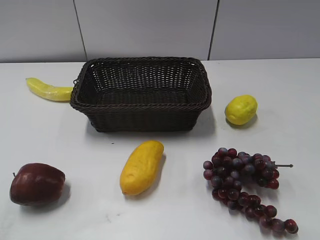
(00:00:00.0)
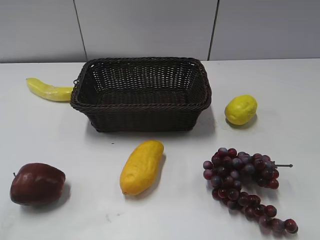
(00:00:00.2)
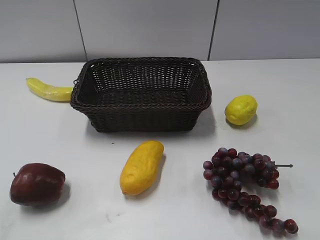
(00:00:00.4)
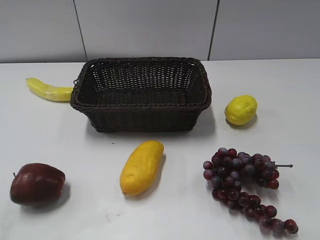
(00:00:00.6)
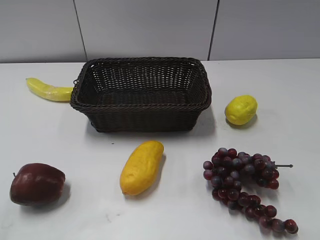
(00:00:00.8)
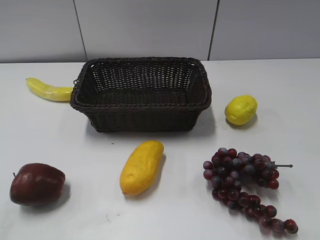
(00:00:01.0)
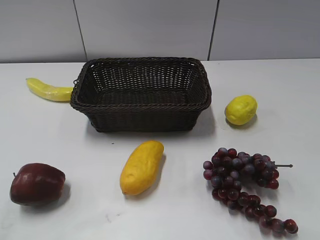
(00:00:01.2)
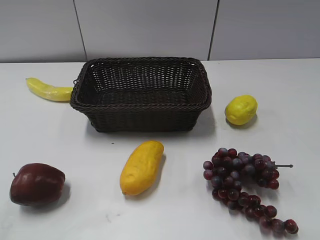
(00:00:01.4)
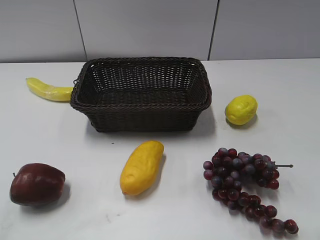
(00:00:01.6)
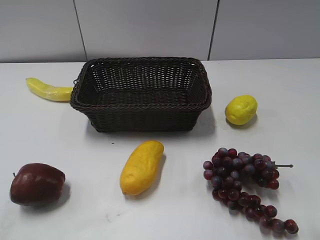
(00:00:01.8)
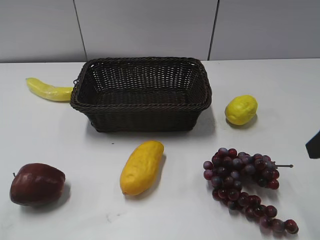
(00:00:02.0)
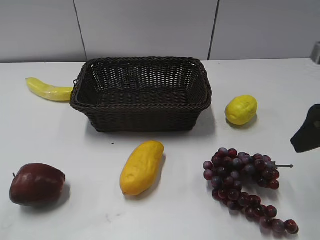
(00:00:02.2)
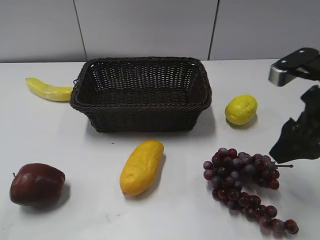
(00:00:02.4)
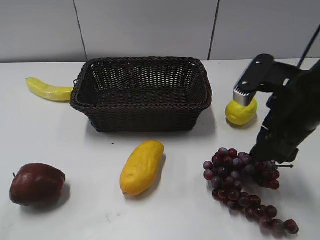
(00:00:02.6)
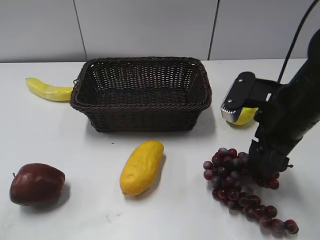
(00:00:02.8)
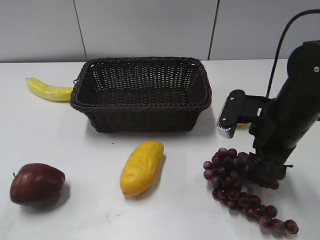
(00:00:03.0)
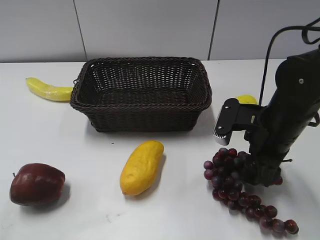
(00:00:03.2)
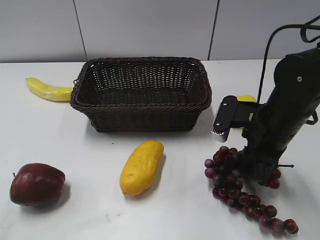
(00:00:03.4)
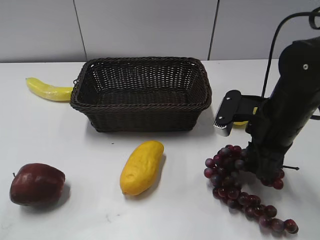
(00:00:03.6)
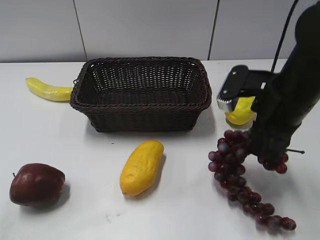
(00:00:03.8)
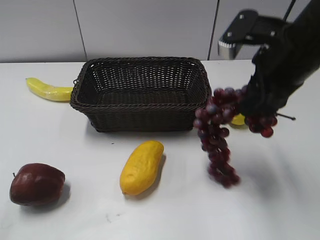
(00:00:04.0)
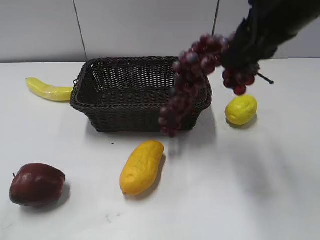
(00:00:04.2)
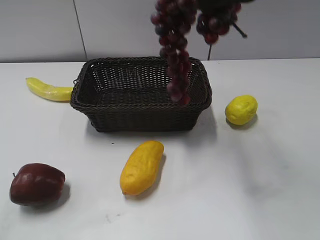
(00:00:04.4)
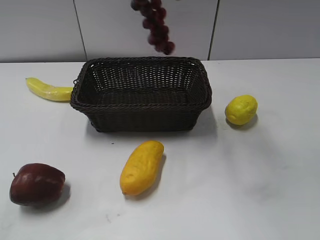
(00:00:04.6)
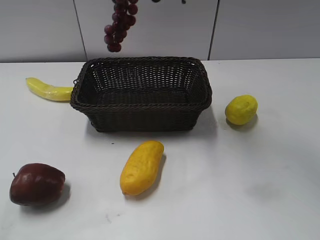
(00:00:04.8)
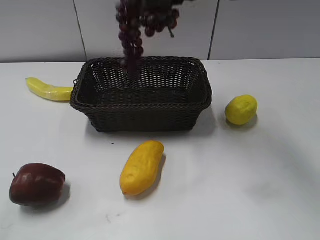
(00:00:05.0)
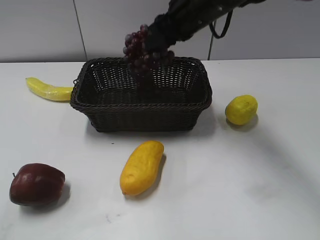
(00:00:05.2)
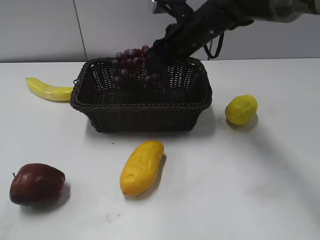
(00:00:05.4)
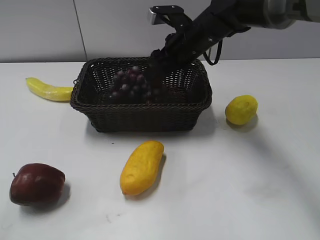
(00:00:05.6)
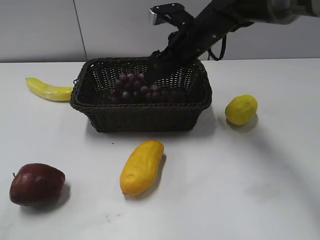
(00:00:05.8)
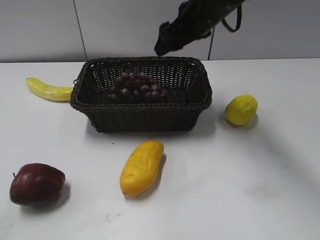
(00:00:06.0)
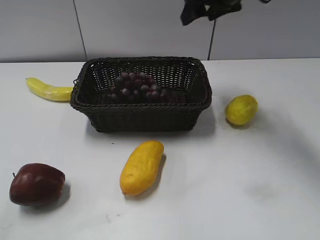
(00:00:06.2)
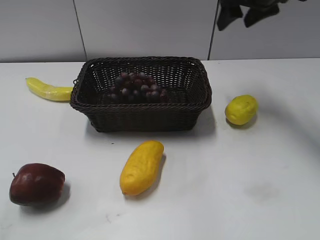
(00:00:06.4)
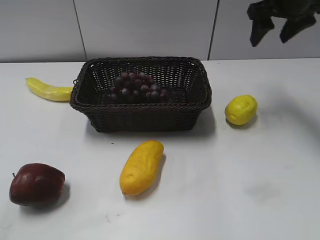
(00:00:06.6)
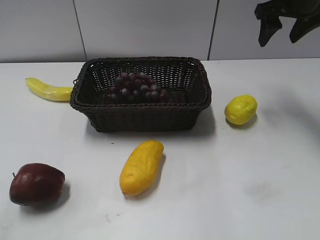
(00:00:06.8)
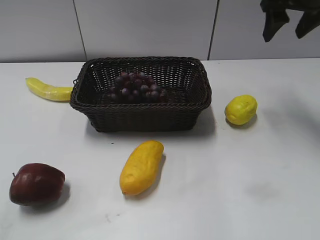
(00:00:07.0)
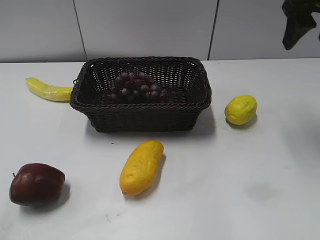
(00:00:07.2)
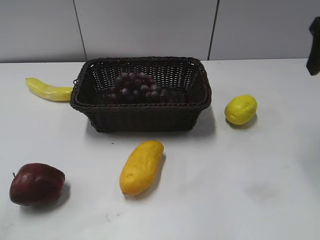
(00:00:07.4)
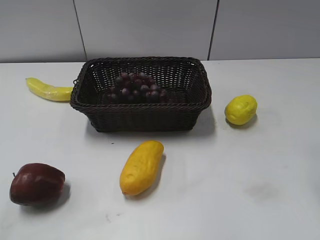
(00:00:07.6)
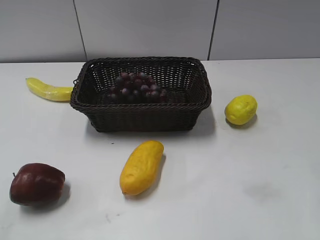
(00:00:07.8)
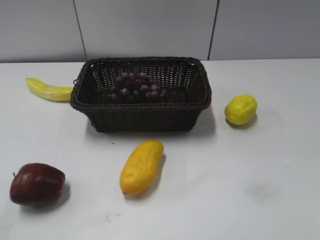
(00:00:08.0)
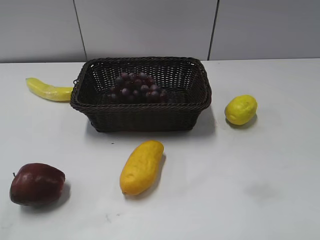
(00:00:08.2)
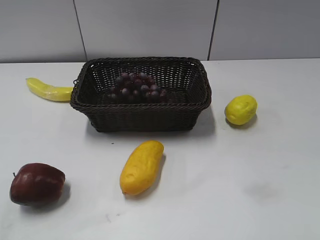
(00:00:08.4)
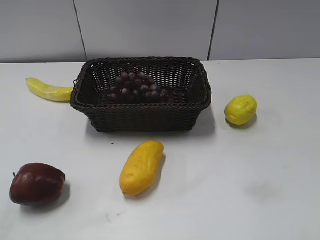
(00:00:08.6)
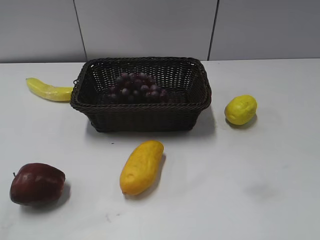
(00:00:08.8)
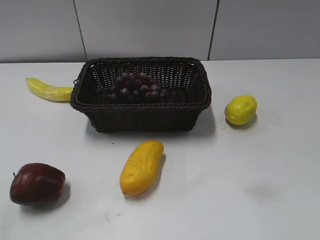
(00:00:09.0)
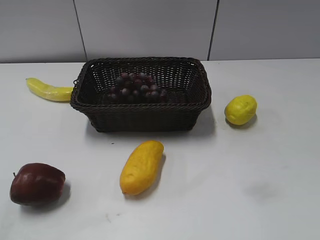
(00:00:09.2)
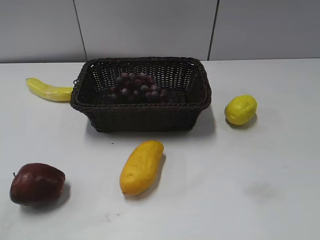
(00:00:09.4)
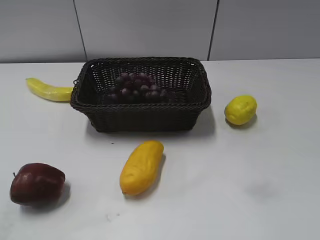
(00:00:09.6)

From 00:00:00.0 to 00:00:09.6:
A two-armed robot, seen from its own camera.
Step, from 00:00:02.0 to 00:00:03.6: Grasp the grape with right gripper.
Step, from 00:00:03.8 to 00:00:05.8: Place the grape in the basket with right gripper.
From 00:00:01.6 to 00:00:03.2: The right gripper is displaced forward, downward and to the left by about 25 cm.
From 00:00:03.2 to 00:00:04.8: The right gripper is displaced upward by some 25 cm, and closes its fingers.
From 00:00:04.8 to 00:00:06.4: The right gripper shifts some 15 cm forward, downward and to the right, and opens its fingers.
From 00:00:06.4 to 00:00:08.0: The right gripper heads backward, covering some 30 cm.
